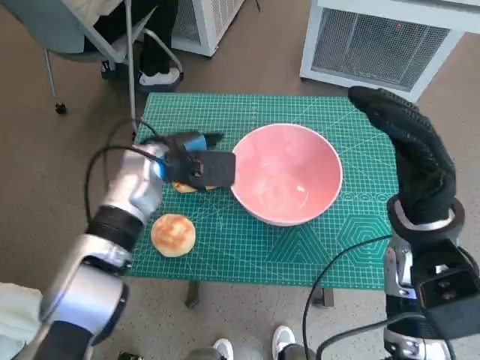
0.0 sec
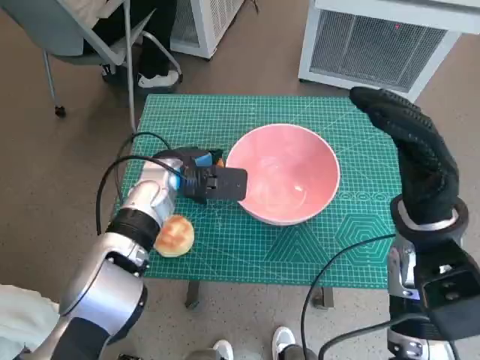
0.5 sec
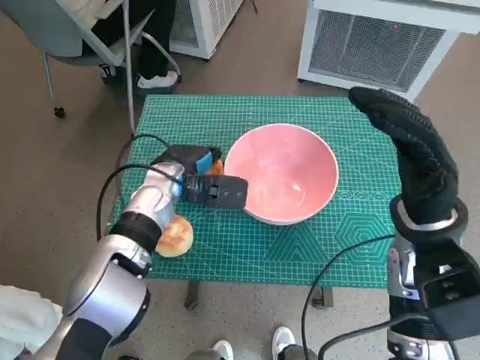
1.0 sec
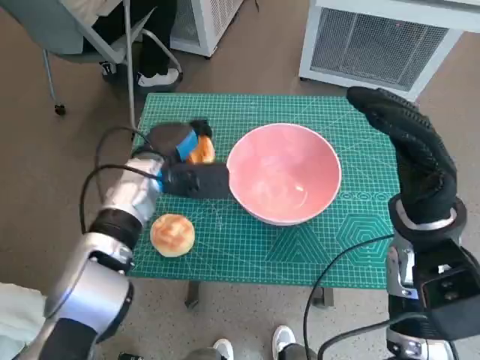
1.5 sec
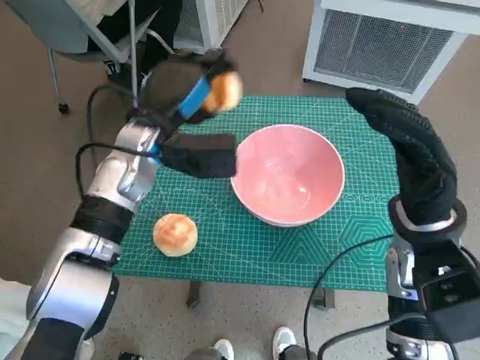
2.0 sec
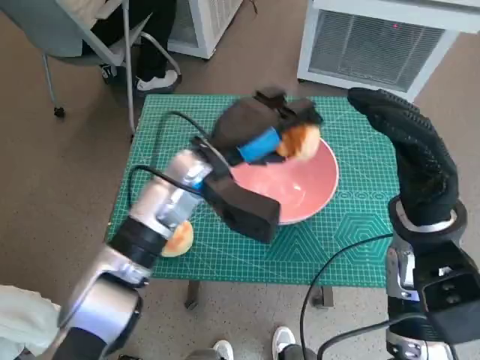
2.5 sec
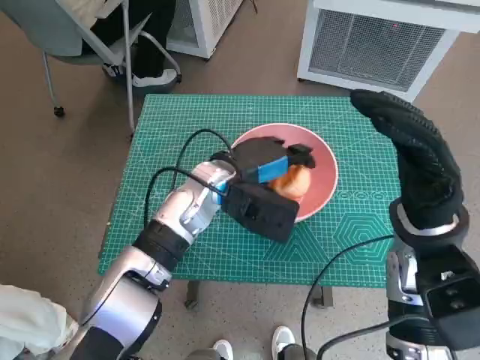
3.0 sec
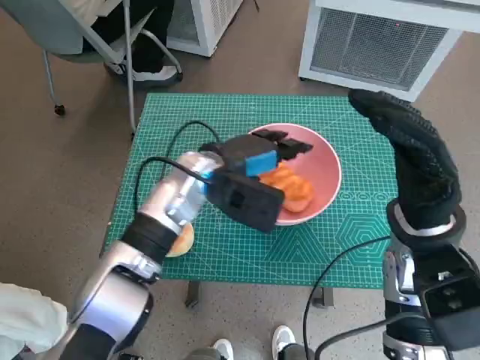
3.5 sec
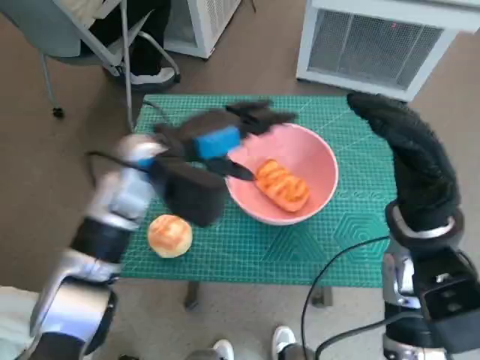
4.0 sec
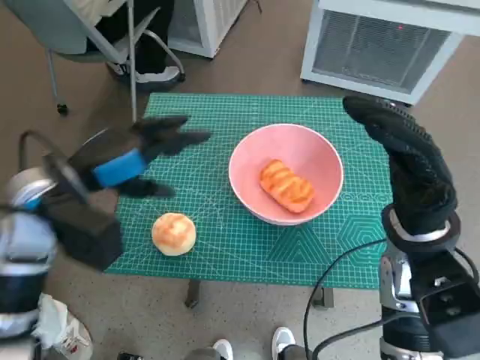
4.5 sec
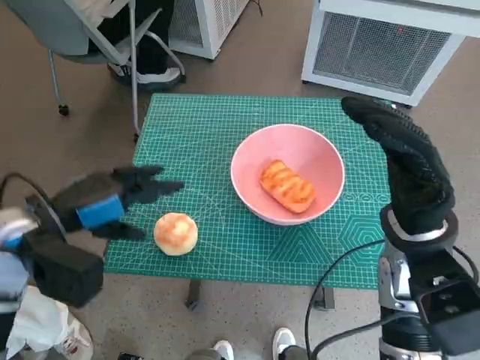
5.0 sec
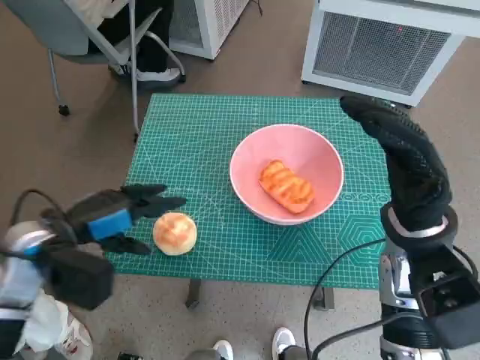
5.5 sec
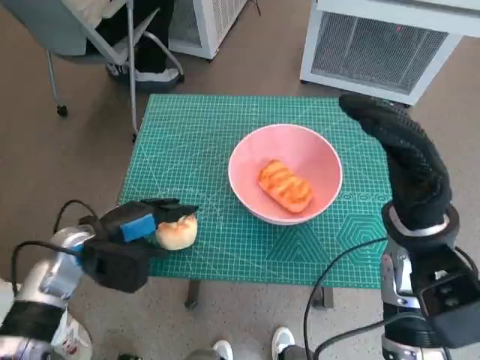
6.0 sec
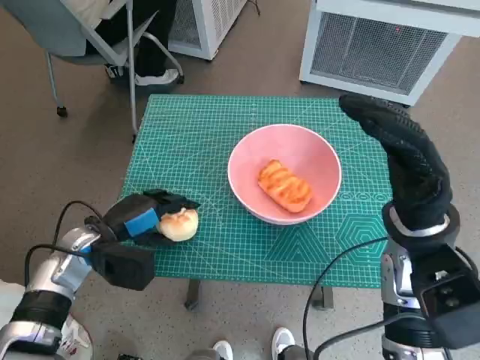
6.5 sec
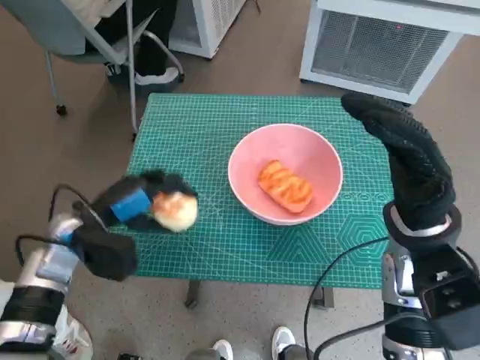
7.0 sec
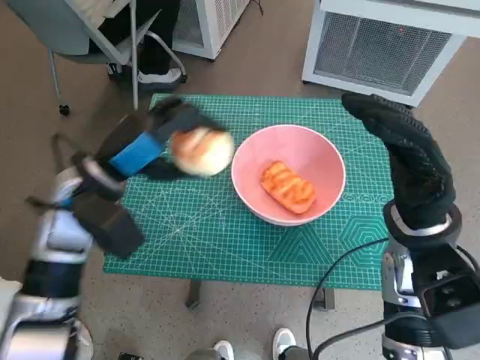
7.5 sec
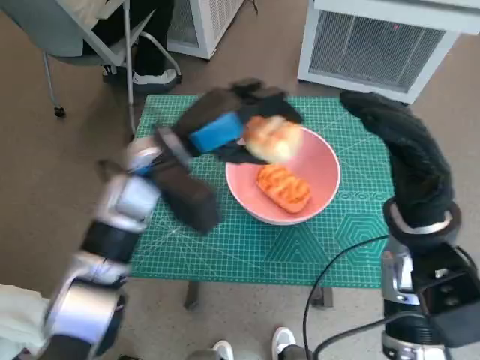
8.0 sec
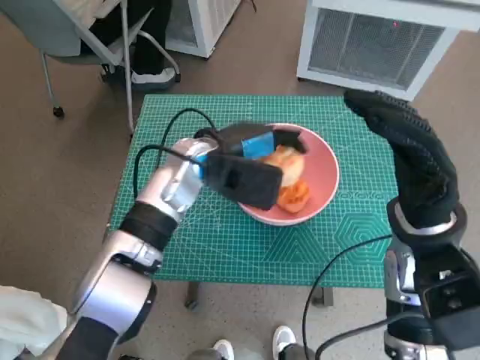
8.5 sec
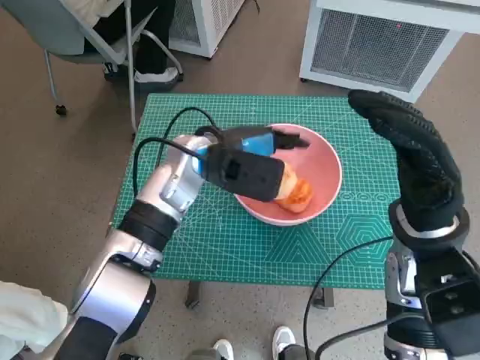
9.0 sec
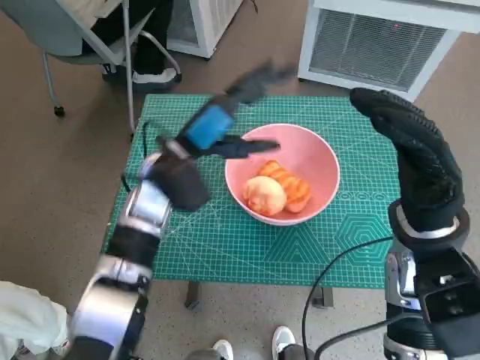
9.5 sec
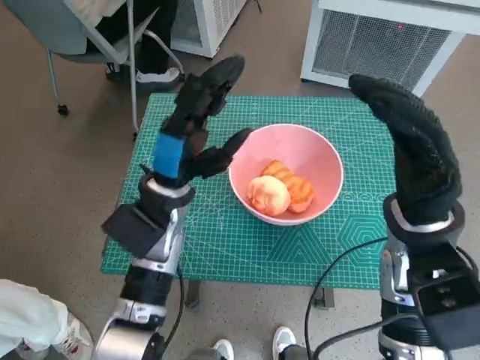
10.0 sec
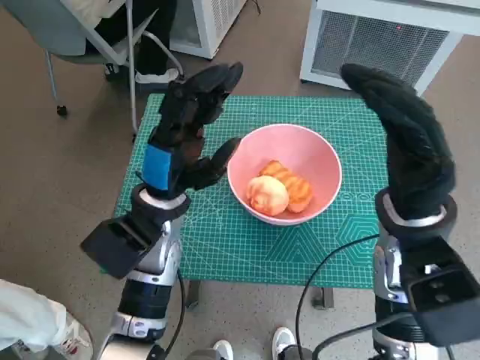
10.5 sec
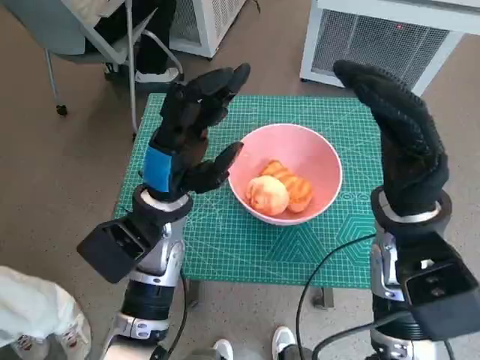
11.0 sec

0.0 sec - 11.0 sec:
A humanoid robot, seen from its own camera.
Task of the whole recording: Push the bowl to the center of the table and put the bread into the bowl.
Step, 1.5 sec - 3.5 sec: Place the long bread in pink bowl with left hand.
Step, 4.0 sec - 6.5 sec: Grasp the round bread with left hand.
Step, 7.0 sec - 9.0 sec: Place the round bread in pink bowl with left hand.
2.0 sec - 3.5 sec: The left hand heads to the right, covering about 10 cm.
3.5 sec - 5.5 sec: The left hand goes approximately 20 cm to the left and backward.
5.5 sec - 7.5 sec: The left hand goes approximately 5 cm forward, and goes downward and returns, about 10 cm each way.
7.5 sec - 9.0 sec: The left hand shifts some 15 cm to the right and forward.
9.0 sec - 11.0 sec: The left hand shifts approximately 5 cm backward.
